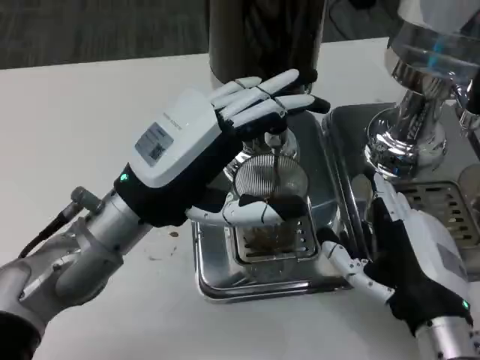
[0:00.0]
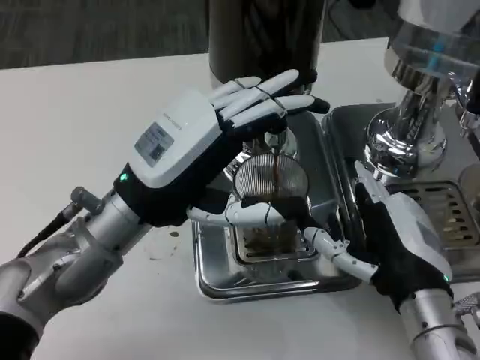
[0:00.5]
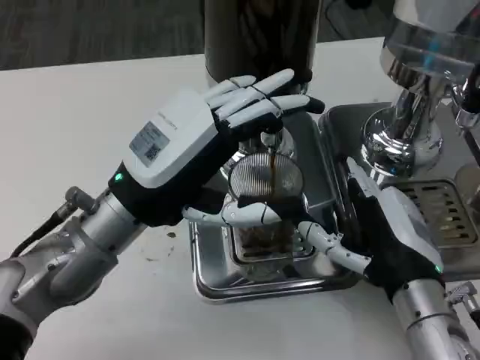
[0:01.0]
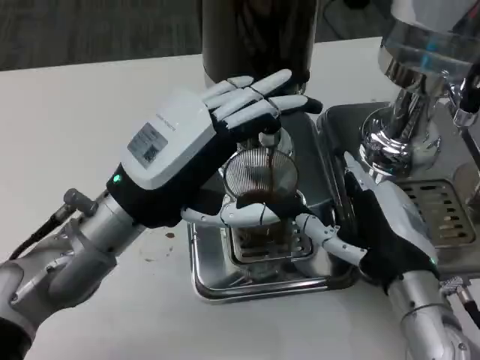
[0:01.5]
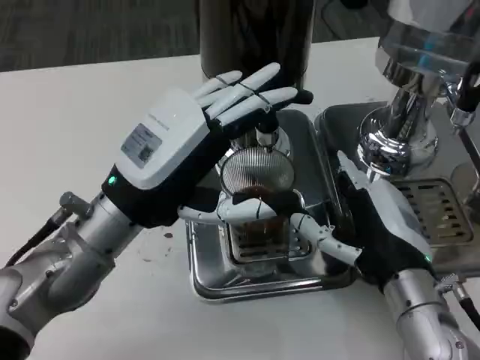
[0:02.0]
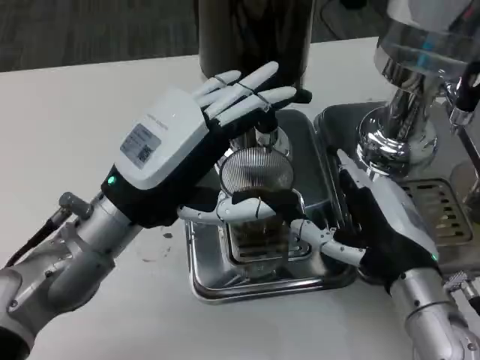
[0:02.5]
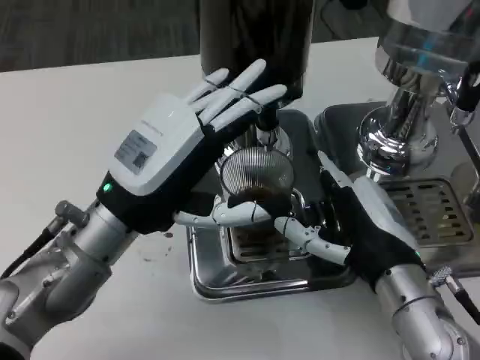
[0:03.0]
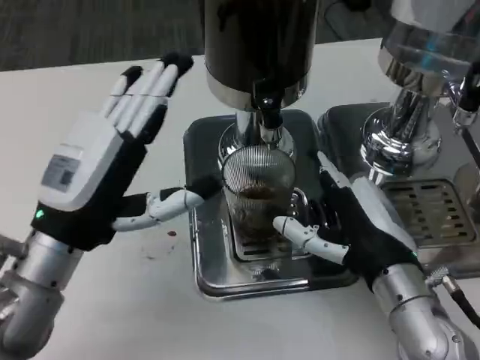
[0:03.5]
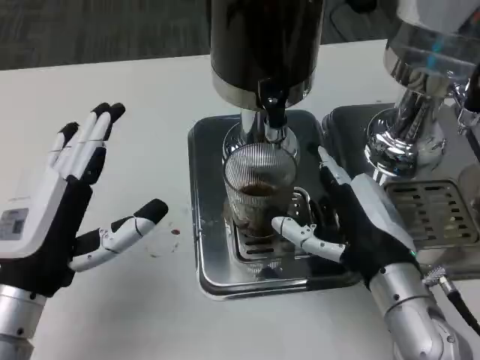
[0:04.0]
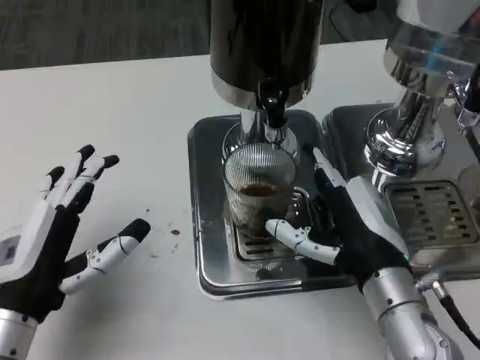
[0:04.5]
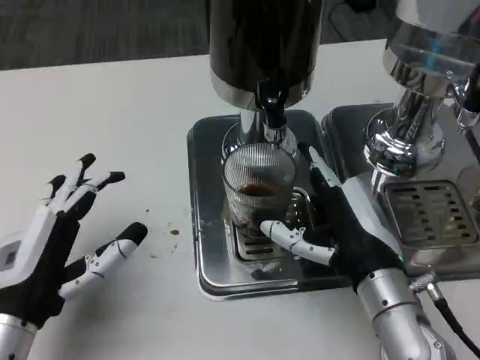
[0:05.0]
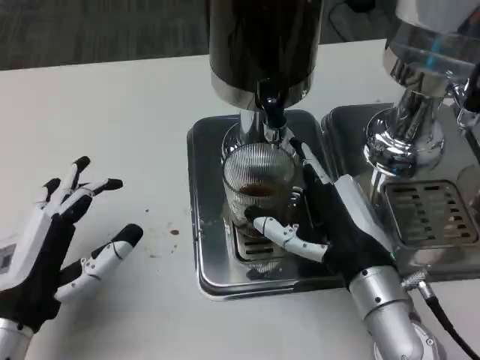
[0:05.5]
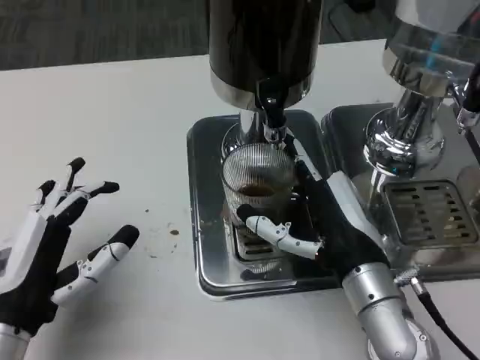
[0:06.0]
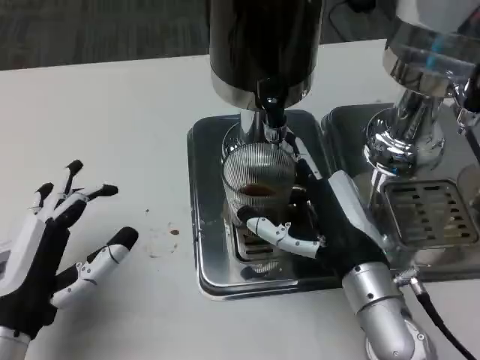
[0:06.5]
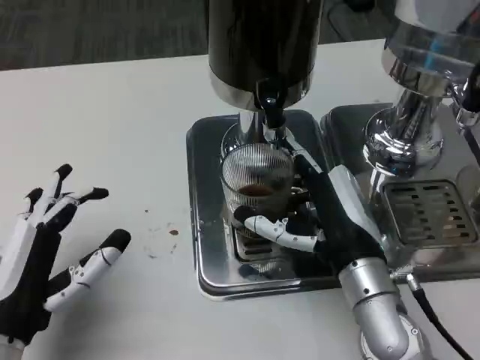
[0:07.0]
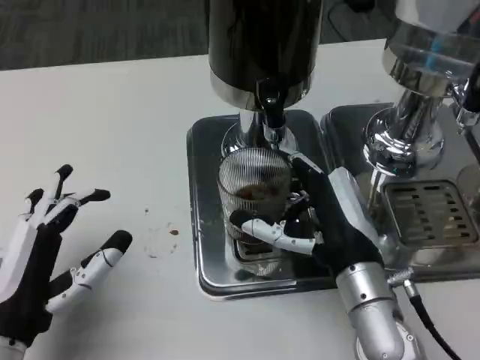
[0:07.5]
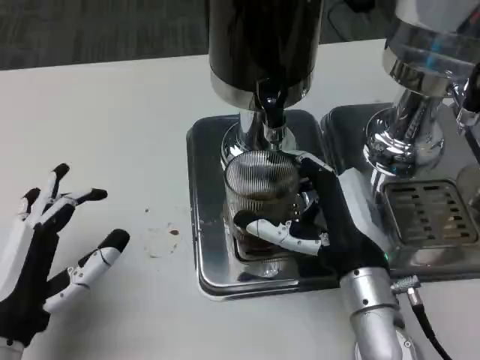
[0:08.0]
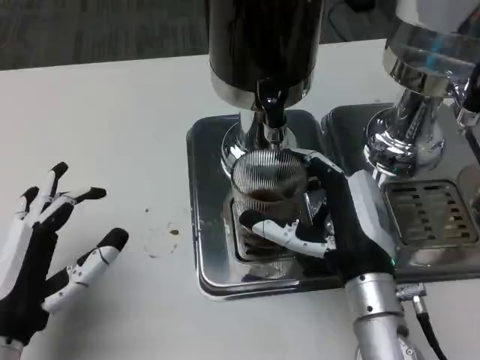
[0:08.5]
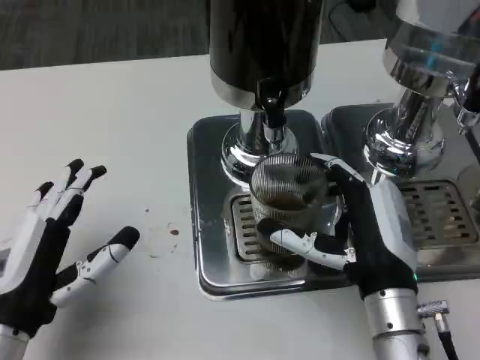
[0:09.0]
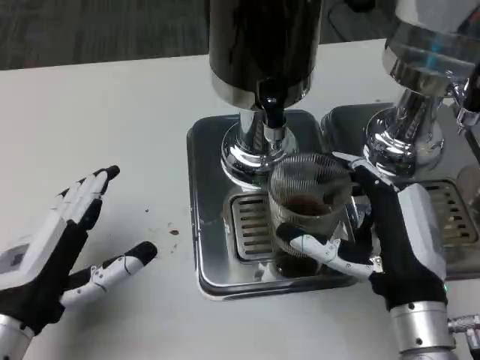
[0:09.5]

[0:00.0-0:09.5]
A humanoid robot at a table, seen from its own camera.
Task of the whole recording: Grasp the cup under the faucet to collect the drink, then remove the cup.
0:02.0 to 0:04.0: The left hand moves backward and to the left, about 10 cm.
0:05.5 to 0:07.5: There are only small adjustments of the hands.
0:07.5 to 0:09.5: The right hand changes place by roughly 5 cm.

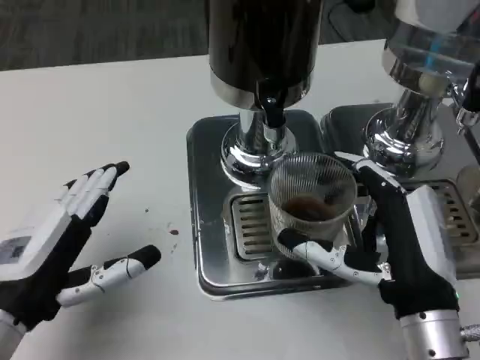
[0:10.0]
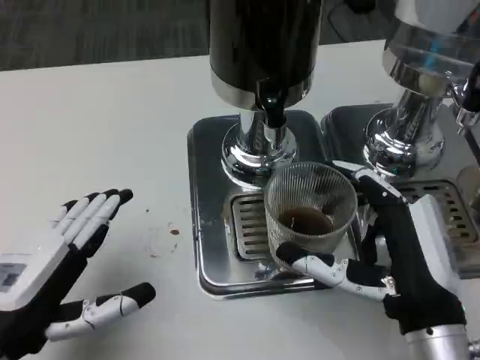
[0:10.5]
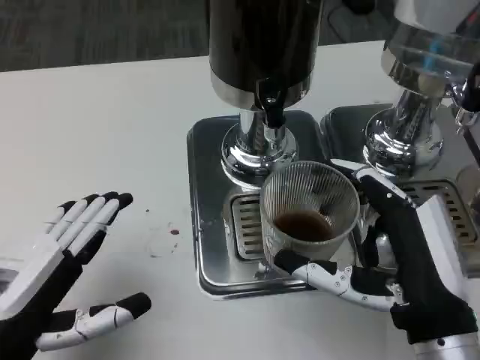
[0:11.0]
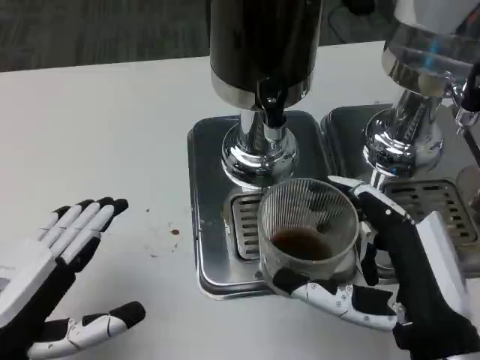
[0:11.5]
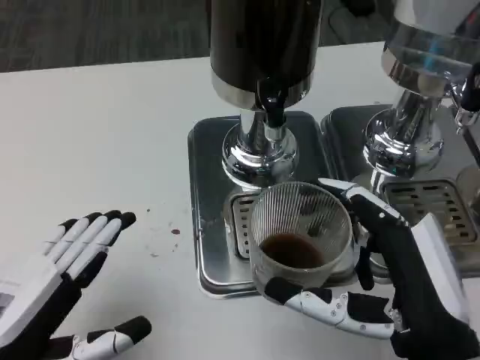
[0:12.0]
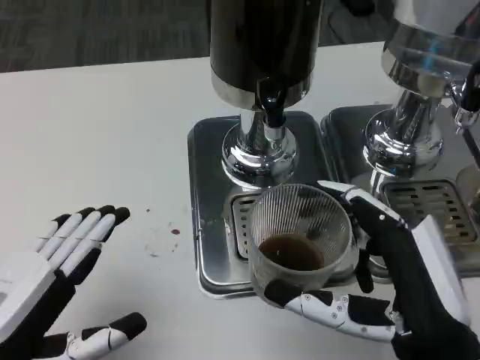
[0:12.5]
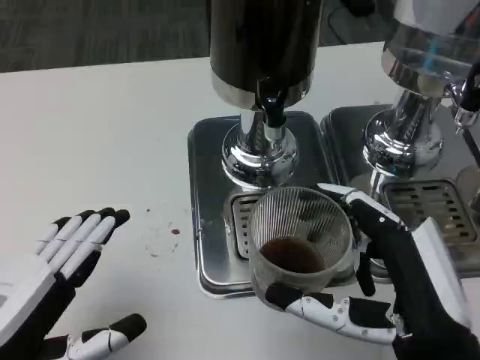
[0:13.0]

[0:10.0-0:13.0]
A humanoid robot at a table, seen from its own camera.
Task of the whole recording: Grasp the cup under the faucet to collect the drink, then remove the cup.
0:11.5 to 0:13.0: The hands make only small movements.

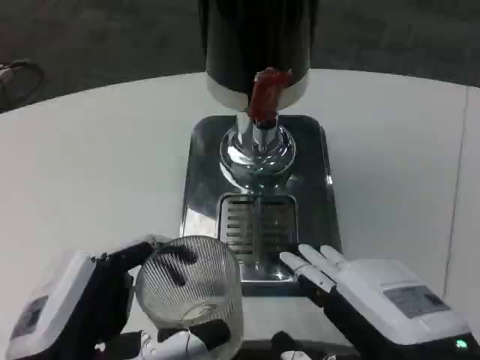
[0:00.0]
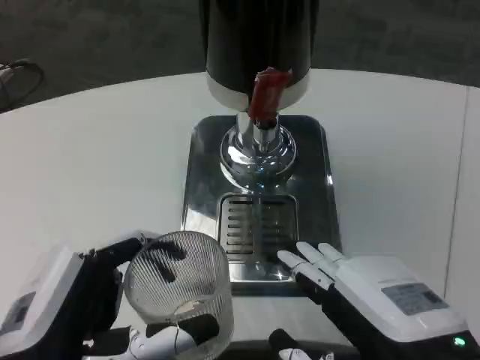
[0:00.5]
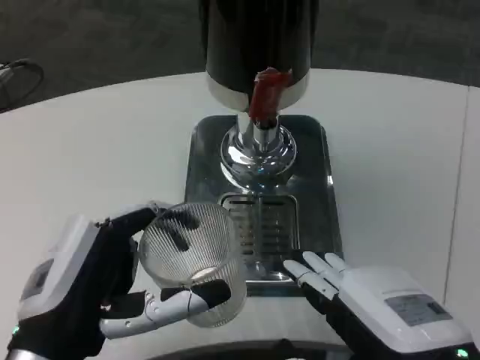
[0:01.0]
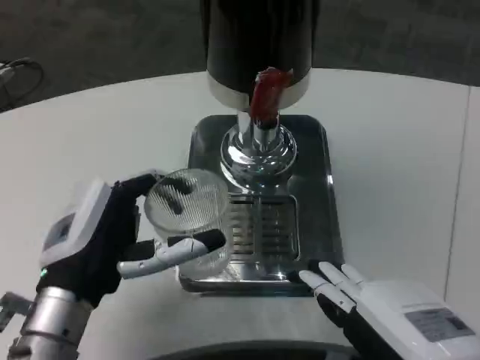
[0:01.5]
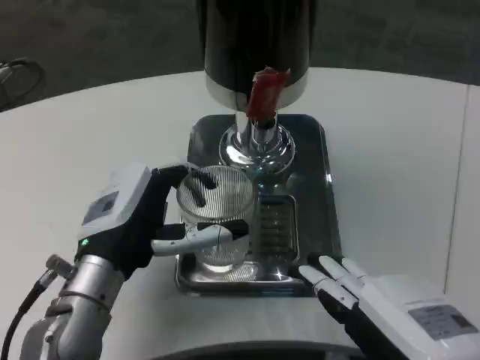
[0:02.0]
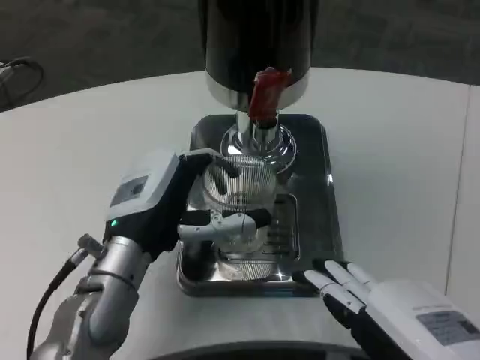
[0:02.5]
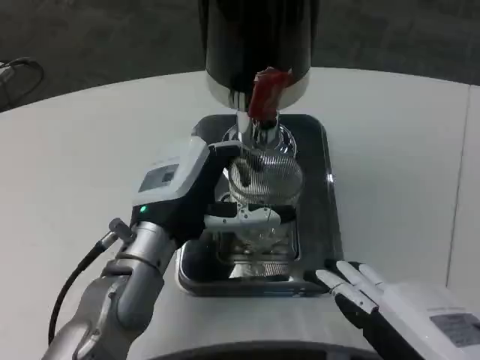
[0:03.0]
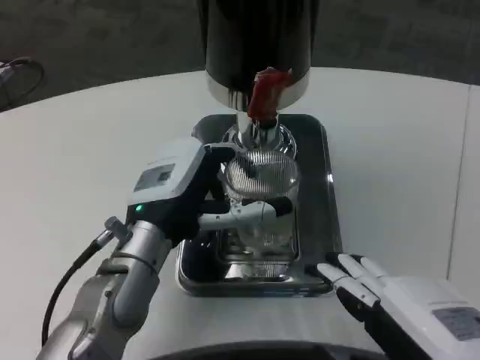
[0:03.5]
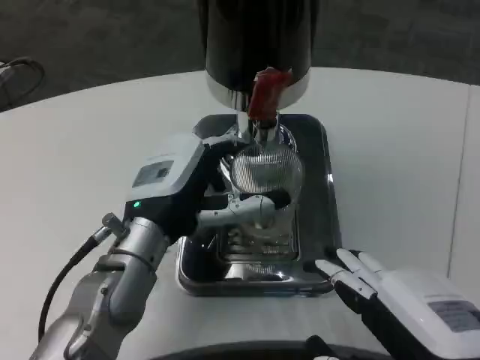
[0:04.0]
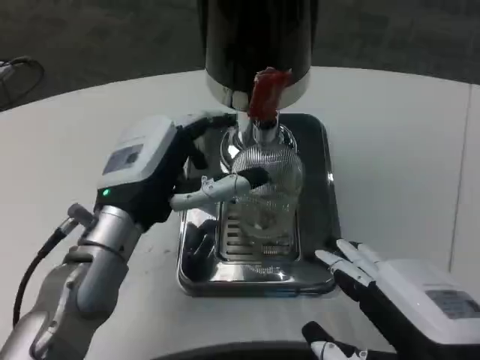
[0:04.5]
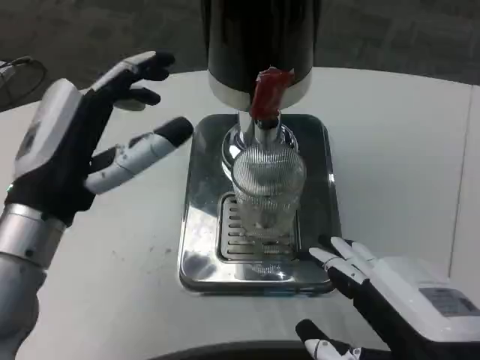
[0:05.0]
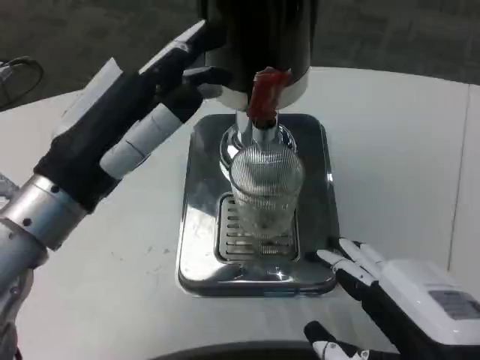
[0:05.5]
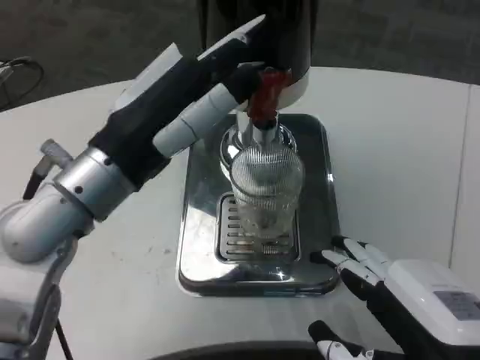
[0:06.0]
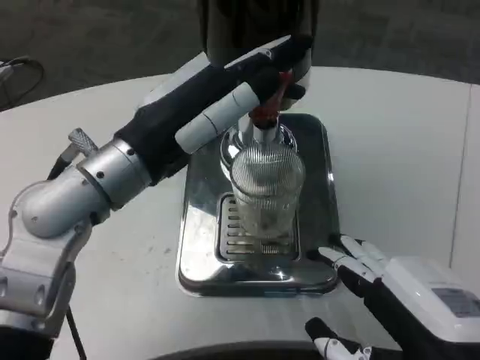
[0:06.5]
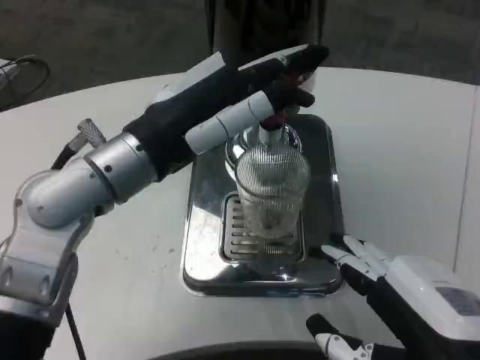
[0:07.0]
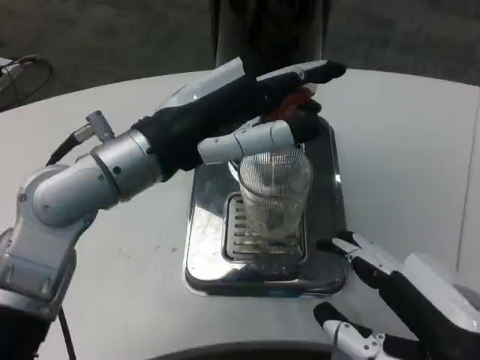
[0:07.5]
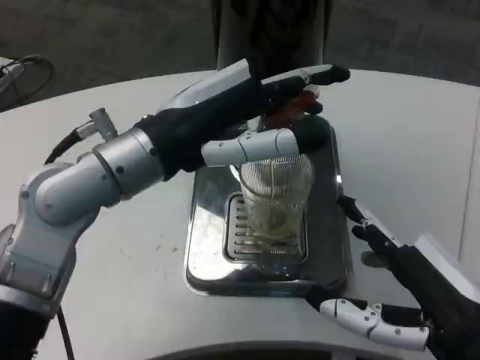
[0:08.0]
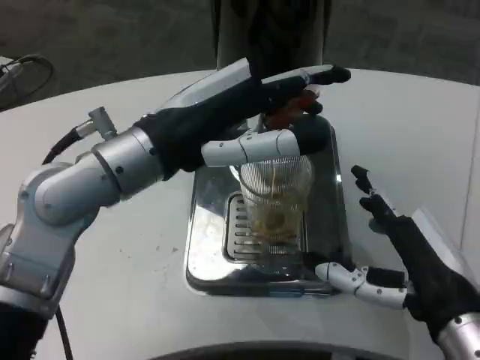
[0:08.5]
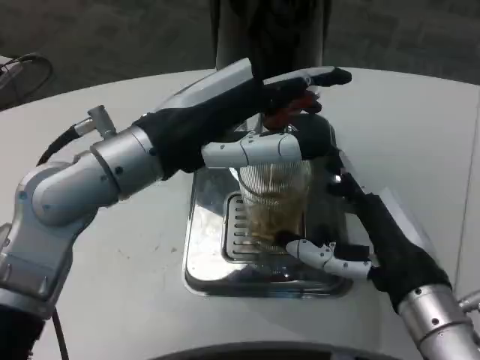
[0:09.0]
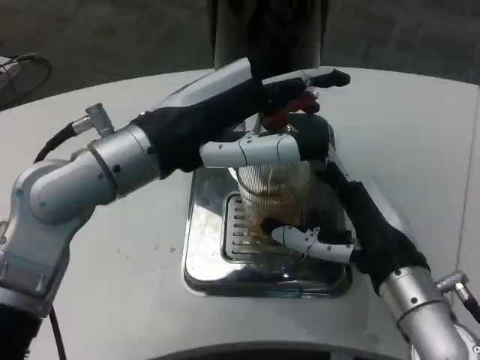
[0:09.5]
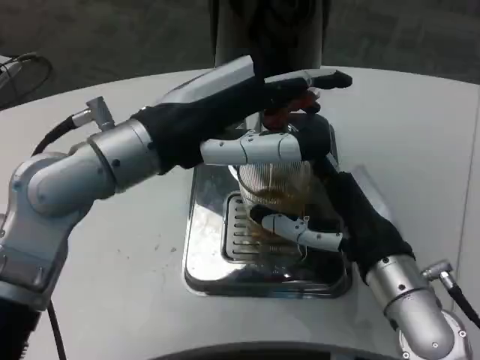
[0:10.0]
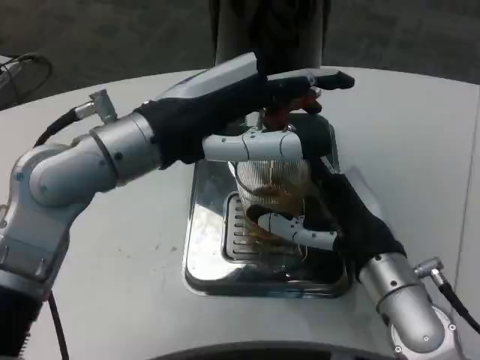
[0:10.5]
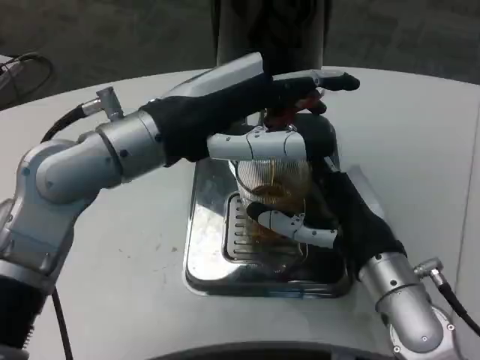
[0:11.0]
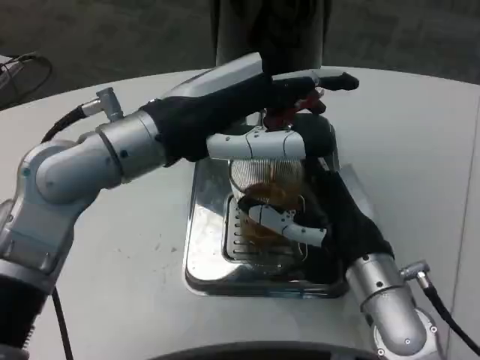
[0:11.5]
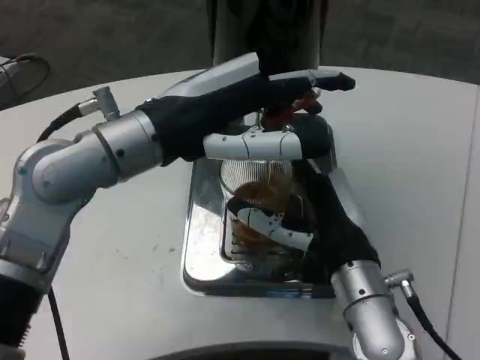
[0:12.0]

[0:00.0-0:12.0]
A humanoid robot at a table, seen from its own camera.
Task of the whole recording: Grasp the cup under the faucet to collect the drink, then remove the cup.
0:00.0 to 0:02.0: The left hand moves forward, approximately 15 cm.
0:02.0 to 0:04.0: The left hand shifts by approximately 5 cm.
0:04.0 to 0:06.0: The left hand is displaced upward by some 10 cm.
0:08.0 to 0:10.0: The right hand heads forward and to the left, covering roughly 10 cm.

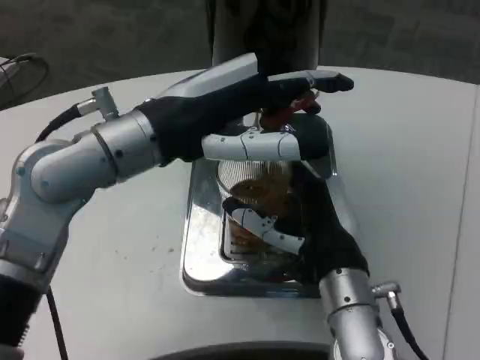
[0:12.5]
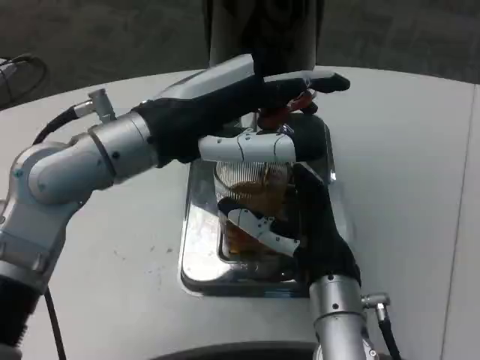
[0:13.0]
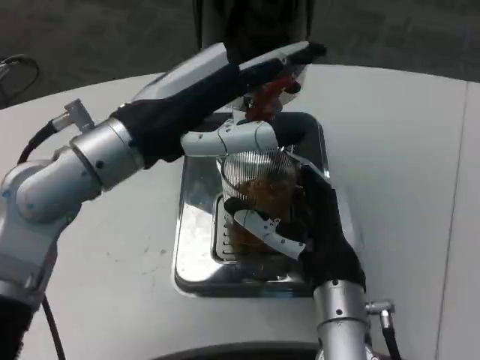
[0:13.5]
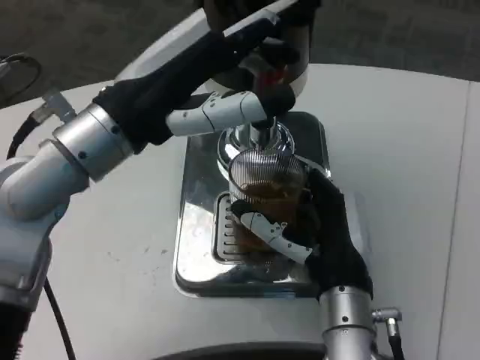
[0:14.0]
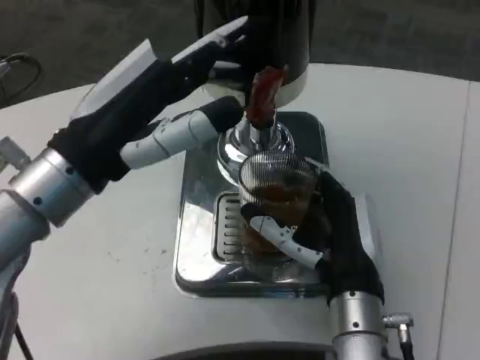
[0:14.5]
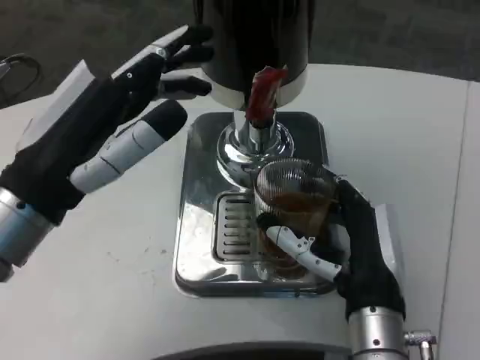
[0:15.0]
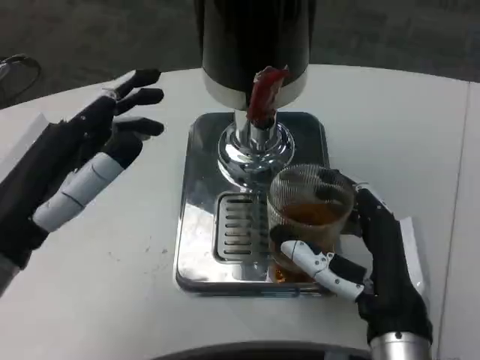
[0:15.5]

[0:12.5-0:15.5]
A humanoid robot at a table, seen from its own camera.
Task of the whole recording: Grasp the cup under the faucet to collect the drink, then remove the cup.
0:14.0 to 0:15.5: The right hand is displaced backward by approximately 5 cm. Meanwhile the left hand is displaced backward, downward and to the left by some 15 cm.
